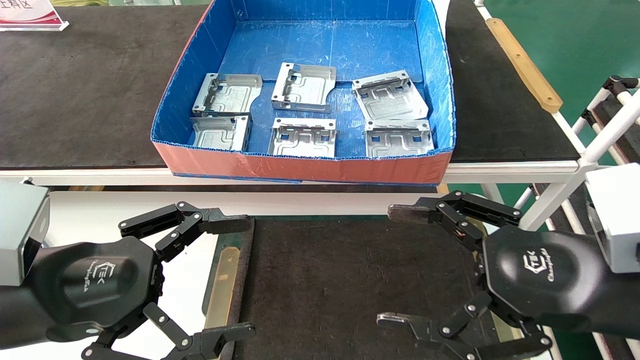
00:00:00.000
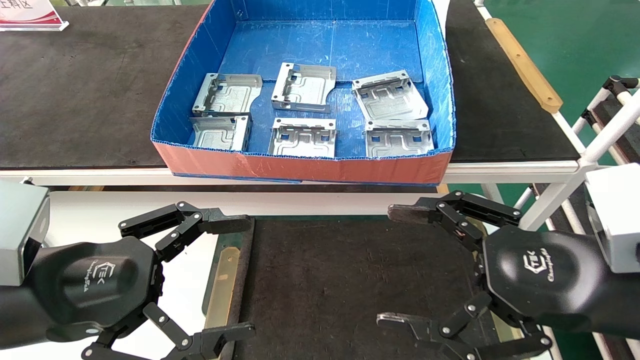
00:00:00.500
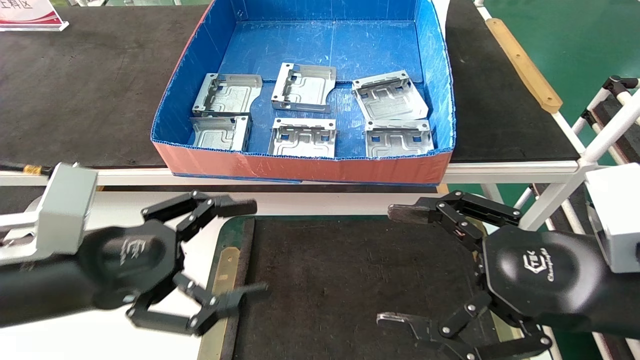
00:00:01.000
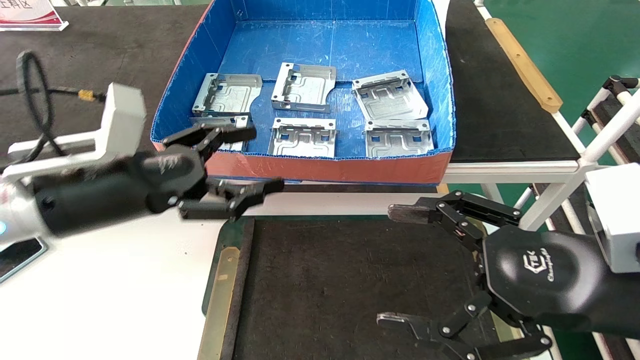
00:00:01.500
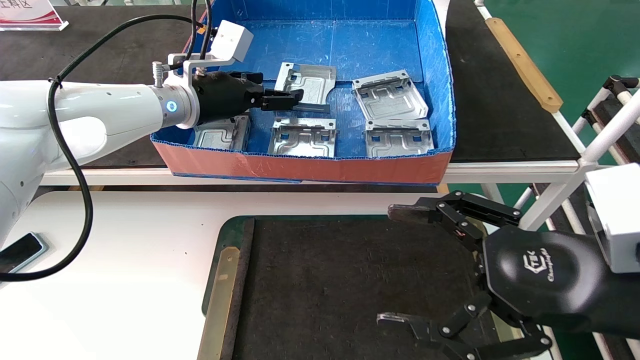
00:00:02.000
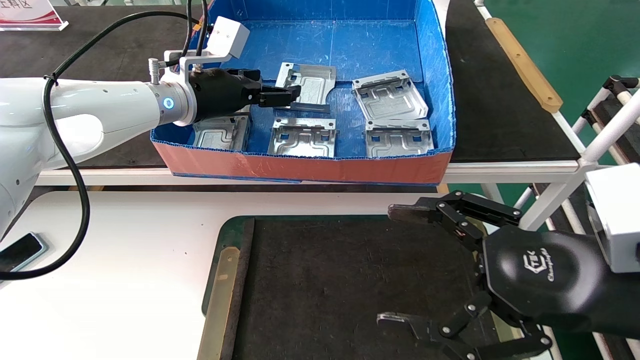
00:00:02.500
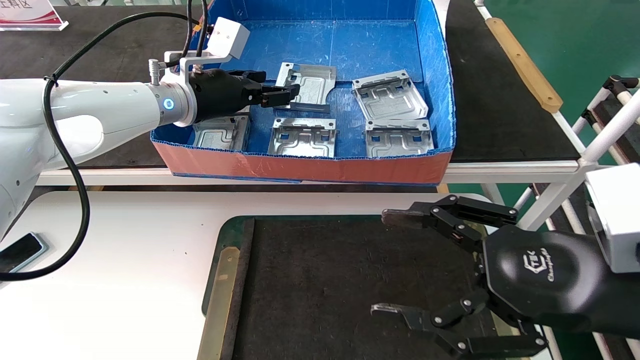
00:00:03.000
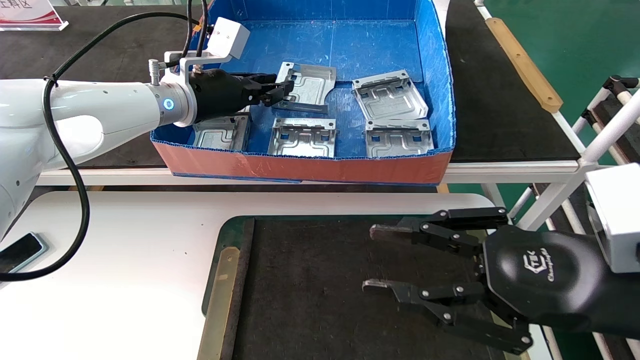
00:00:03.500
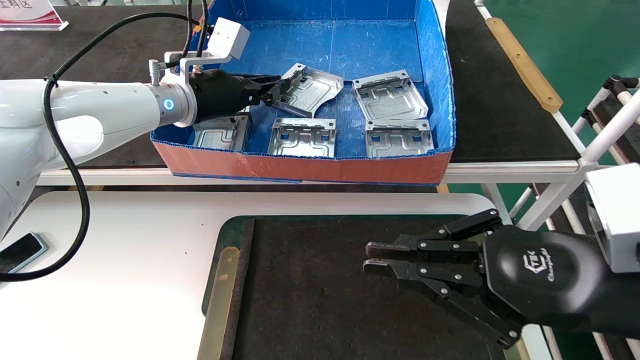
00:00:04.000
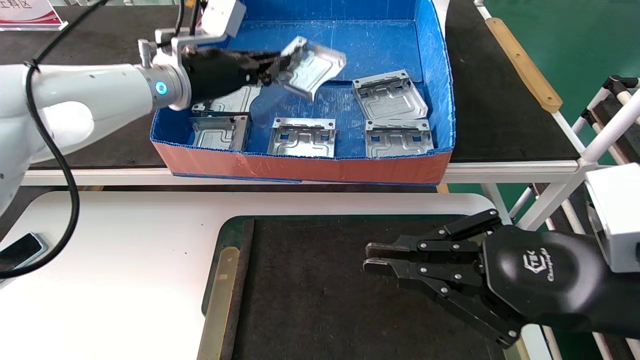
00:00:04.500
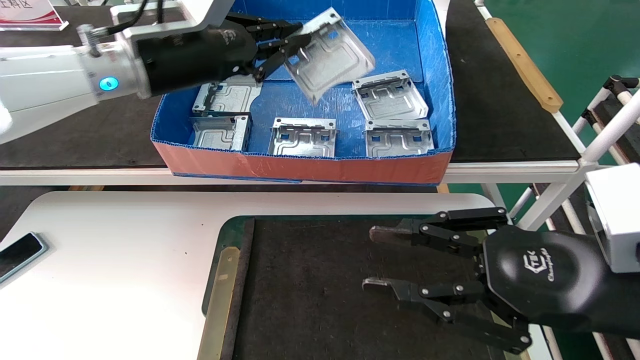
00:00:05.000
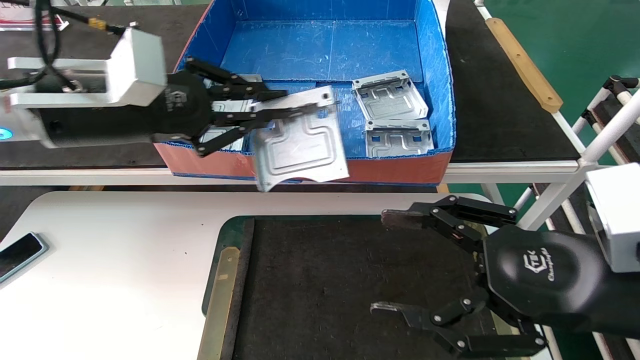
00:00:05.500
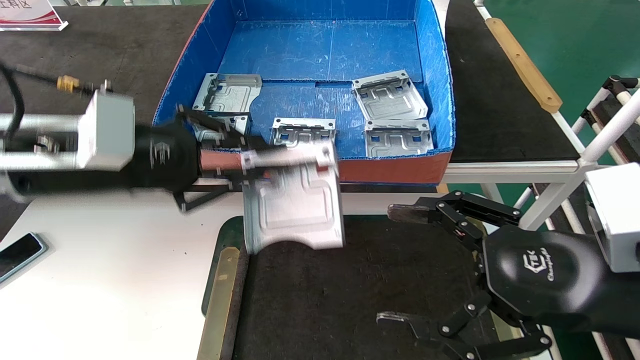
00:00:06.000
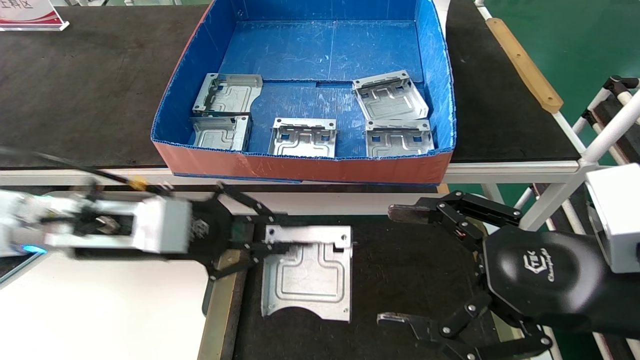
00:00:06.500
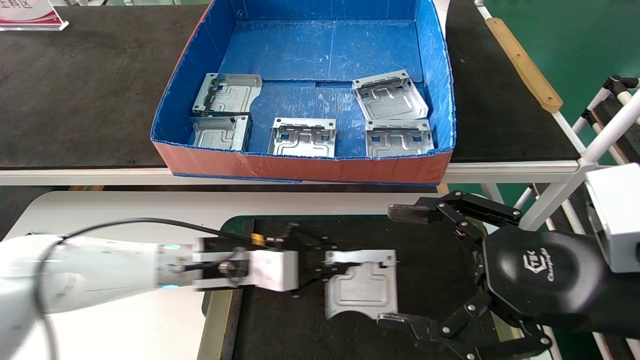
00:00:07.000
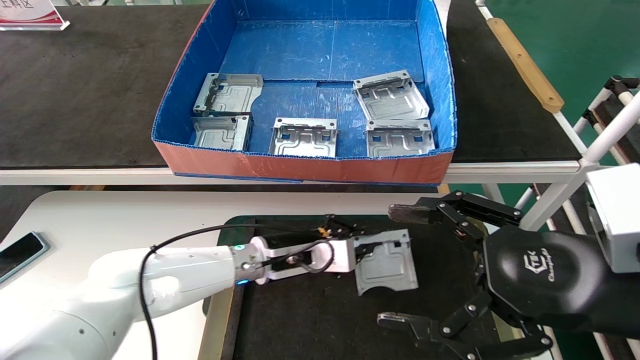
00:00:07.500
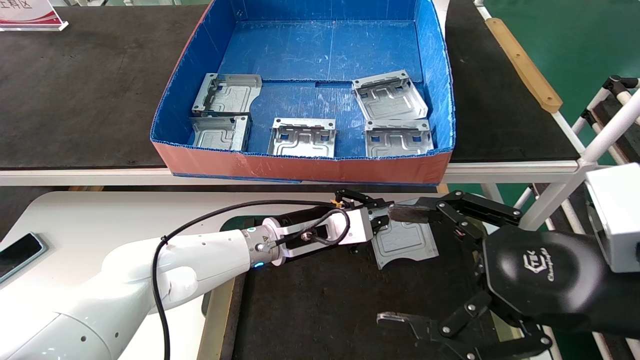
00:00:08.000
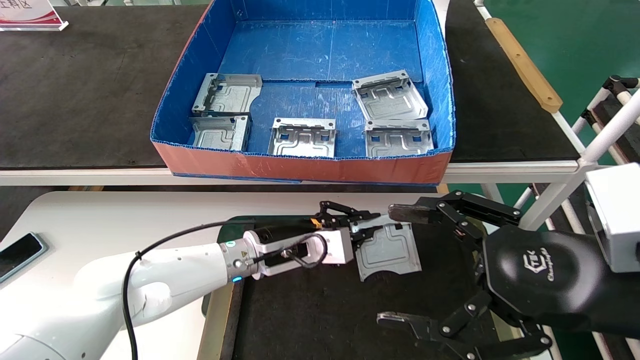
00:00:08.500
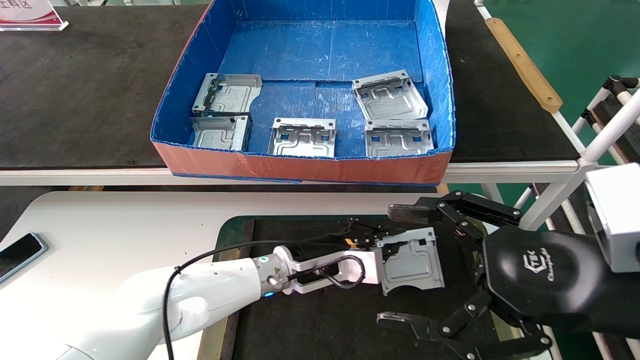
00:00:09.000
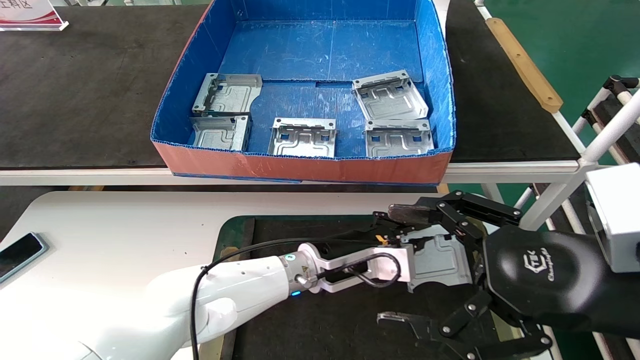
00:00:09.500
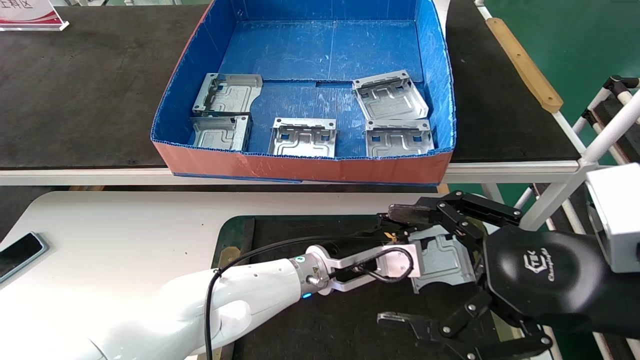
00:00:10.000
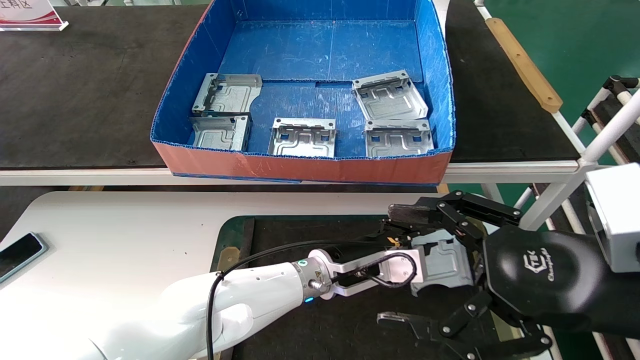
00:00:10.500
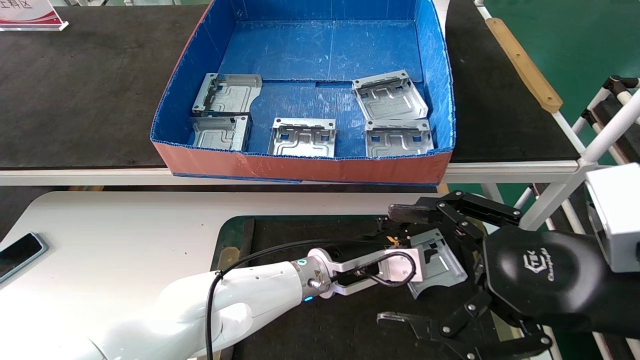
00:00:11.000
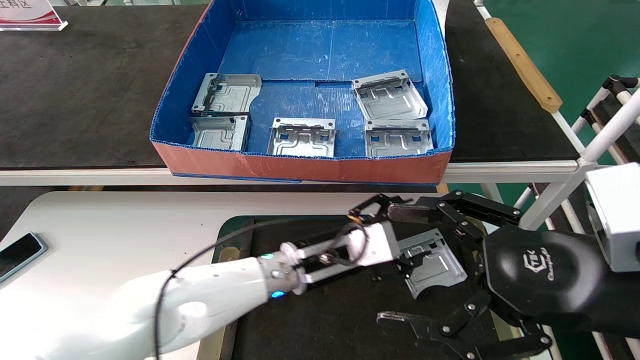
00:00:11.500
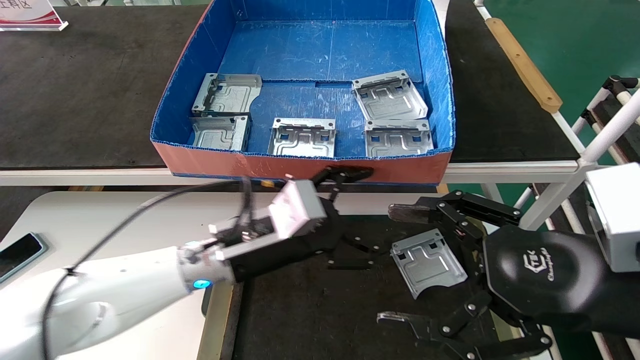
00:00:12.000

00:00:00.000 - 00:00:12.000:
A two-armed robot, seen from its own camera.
Task of the whole recording: take the accessories out of the box and place them on the table.
Step, 00:00:01.500 - 00:00:05.000: Pick up the hard drive bracket from the feeding area.
Step, 00:00:05.500 - 00:00:12.000: Place the hard drive bracket into the box.
00:00:00.000 - 00:00:02.000: The left gripper shifts roughly 15 cm forward and upward.
00:00:02.000 - 00:00:04.000: The left gripper moves forward, to the right and upward, approximately 15 cm.
00:00:04.000 - 00:00:06.000: The left gripper closes up. Meanwhile the right gripper closes.
00:00:06.000 - 00:00:08.000: The left gripper goes approximately 20 cm downward and backward. The right gripper opens its fingers.
00:00:08.000 - 00:00:10.000: The left gripper moves to the right, downward and forward, about 20 cm.
00:00:10.000 - 00:00:12.000: The left gripper travels to the right by about 10 cm.
